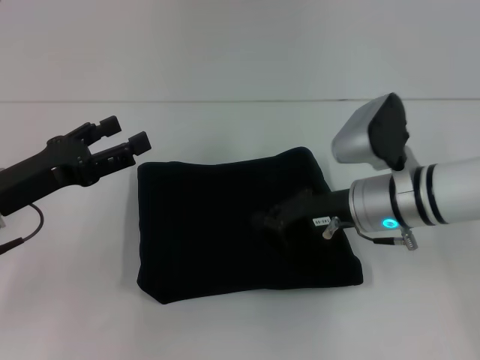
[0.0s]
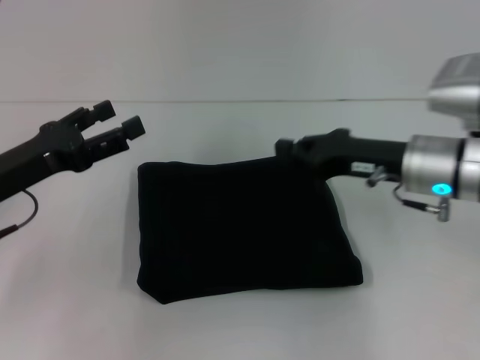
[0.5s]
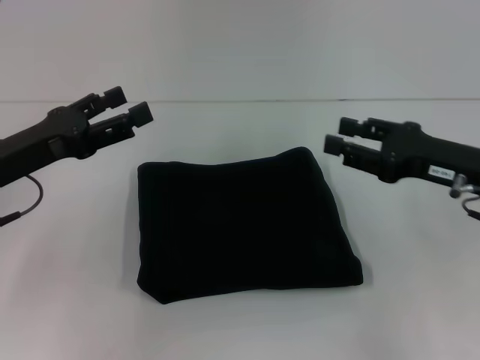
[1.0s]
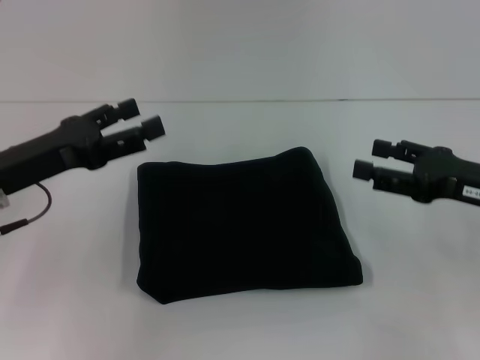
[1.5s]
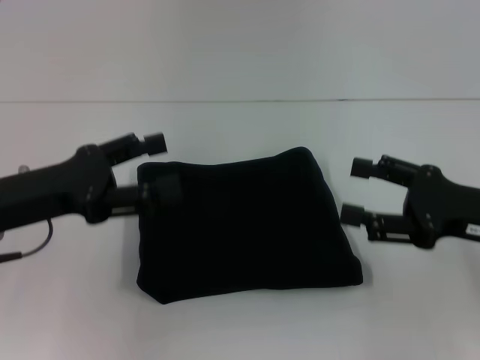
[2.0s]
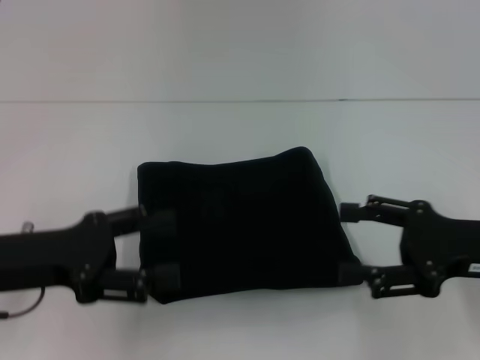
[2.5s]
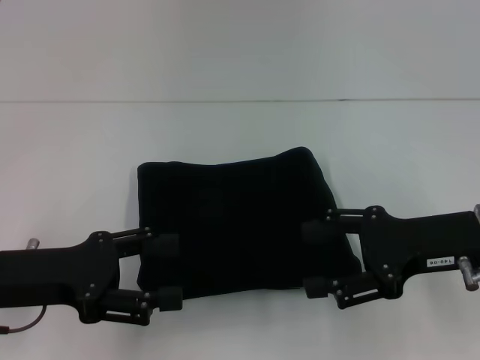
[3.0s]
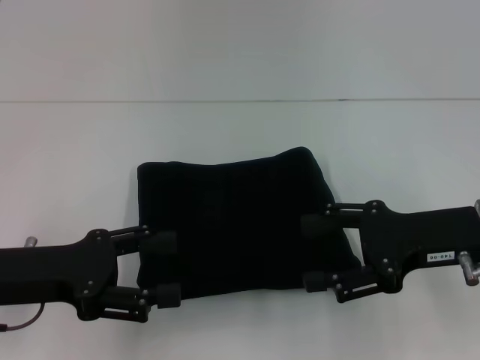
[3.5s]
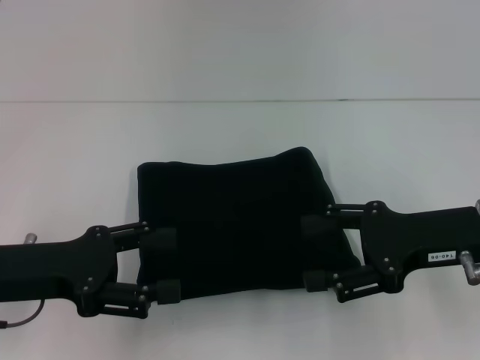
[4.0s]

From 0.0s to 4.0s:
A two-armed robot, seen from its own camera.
From 0.0s to 2.0s: The right gripper travels to the right and backward by roughly 15 cm, and opens up.

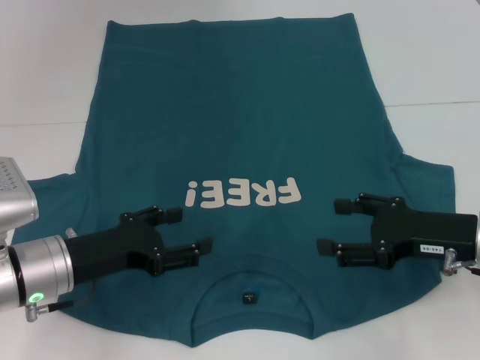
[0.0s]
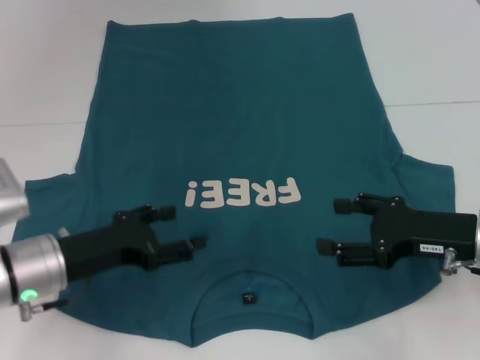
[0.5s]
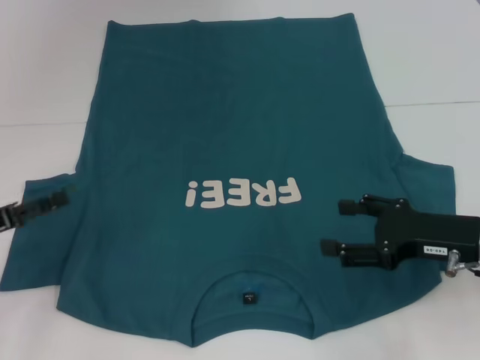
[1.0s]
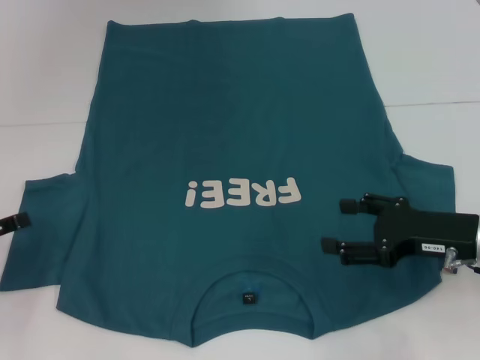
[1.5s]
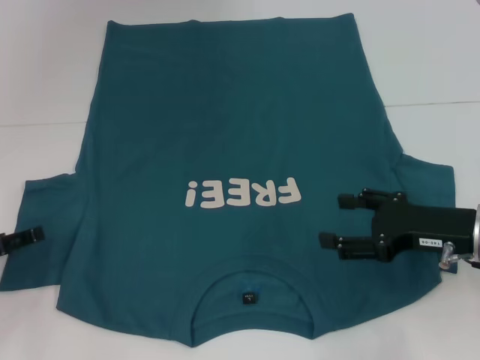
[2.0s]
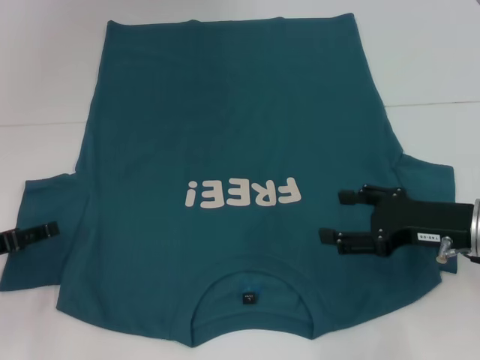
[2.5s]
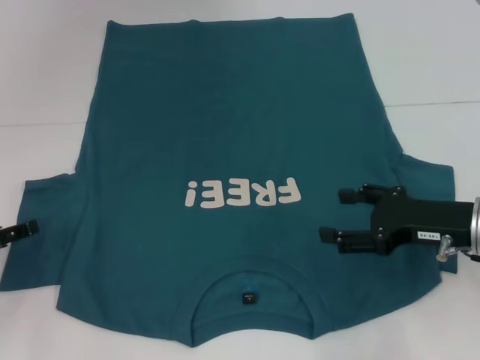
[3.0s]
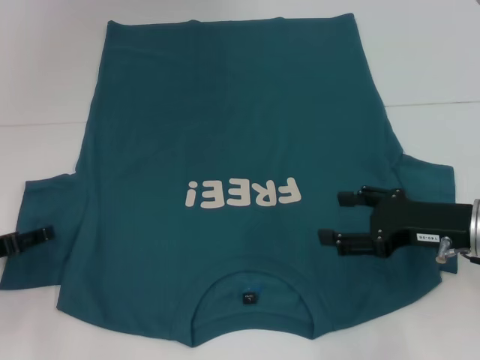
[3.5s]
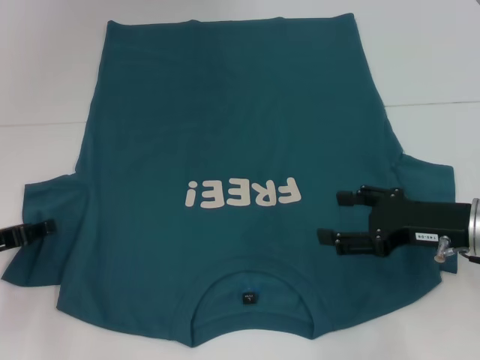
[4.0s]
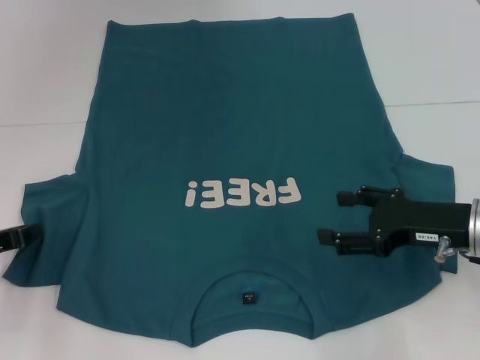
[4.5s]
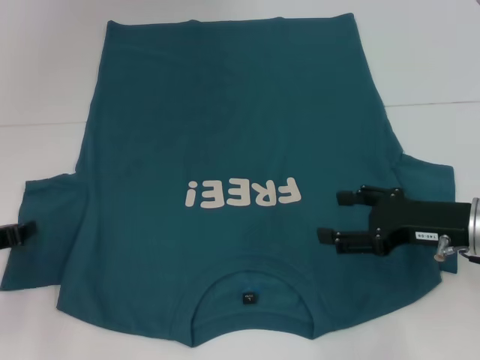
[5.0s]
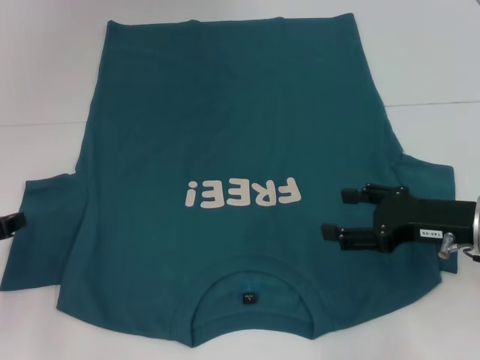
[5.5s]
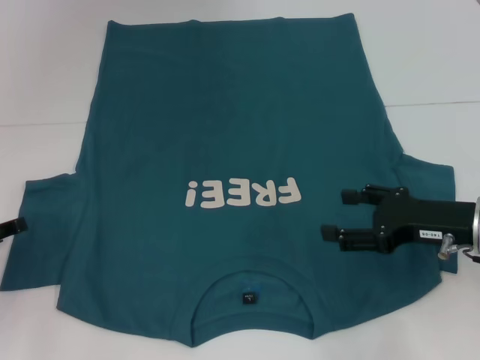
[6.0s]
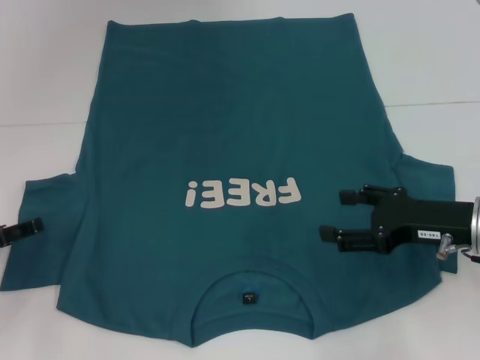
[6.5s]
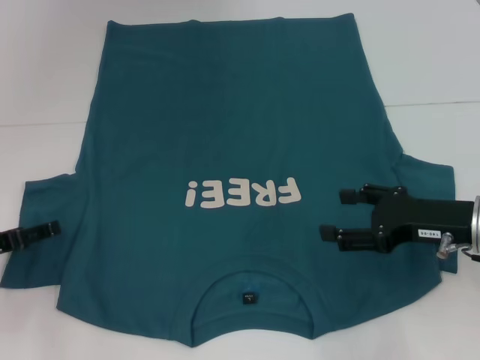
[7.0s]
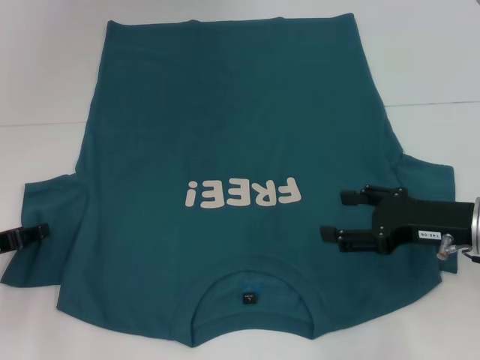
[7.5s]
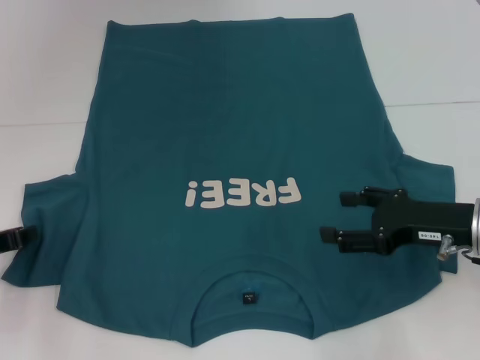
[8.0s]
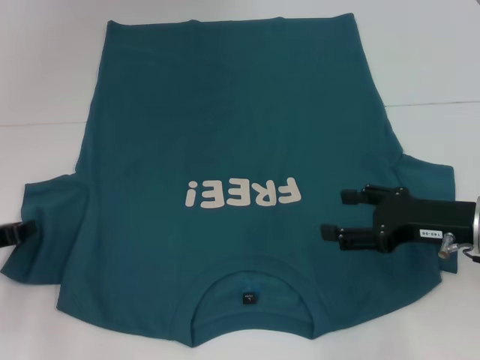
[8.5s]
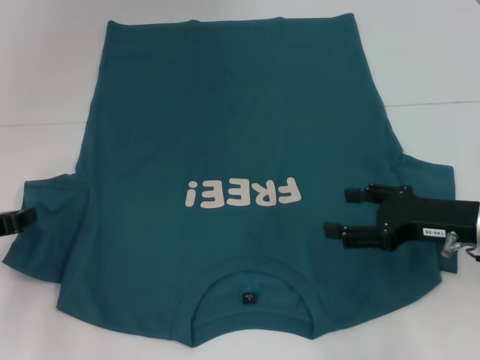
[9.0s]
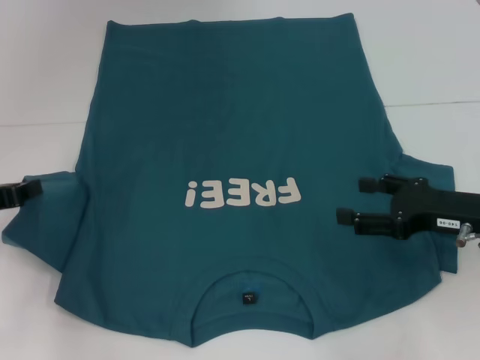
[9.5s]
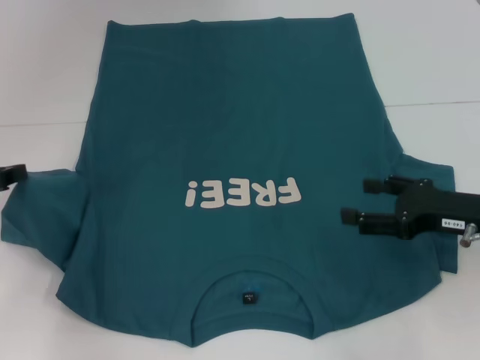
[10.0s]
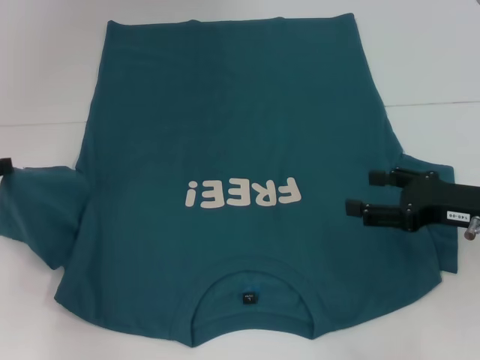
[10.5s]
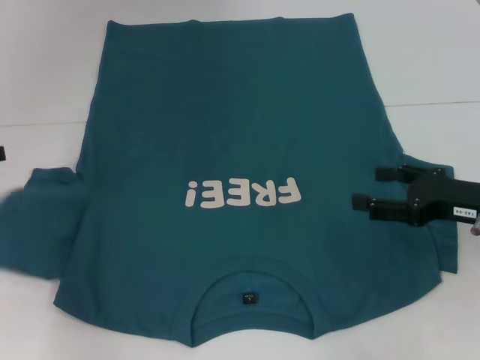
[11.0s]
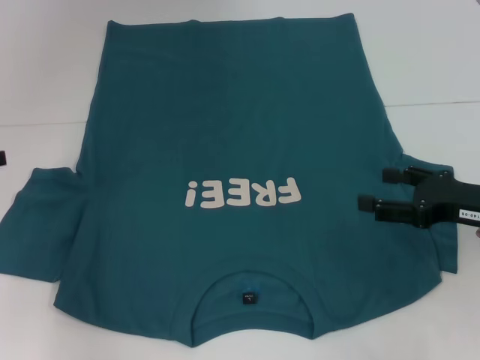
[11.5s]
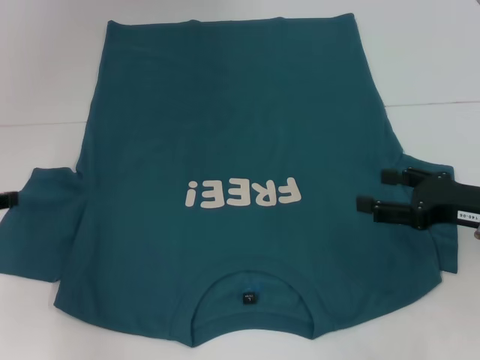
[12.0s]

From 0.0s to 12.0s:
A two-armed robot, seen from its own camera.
From 0.0s to 2.0s: The left gripper heads to the left, covering some 15 cm.
From 2.0s to 4.0s: The grippers stay close to where they were, moving slightly.
From 4.0s to 6.0s: The left gripper closes up.
From 6.0s to 8.0s: The left gripper opens and closes again.
From 8.0s to 10.0s: The left gripper moves upward, about 5 cm.
From 10.0s to 12.0s: There are only small adjustments of the grippers.

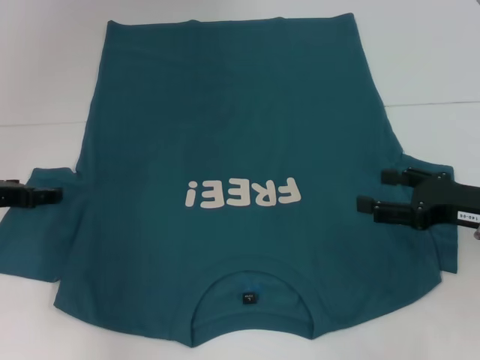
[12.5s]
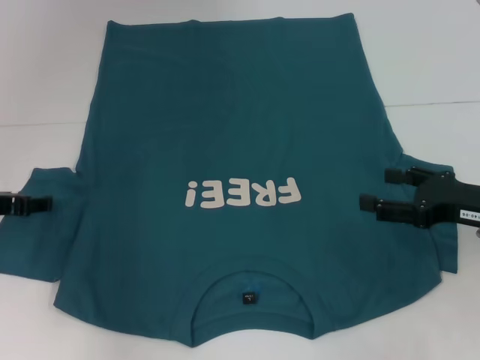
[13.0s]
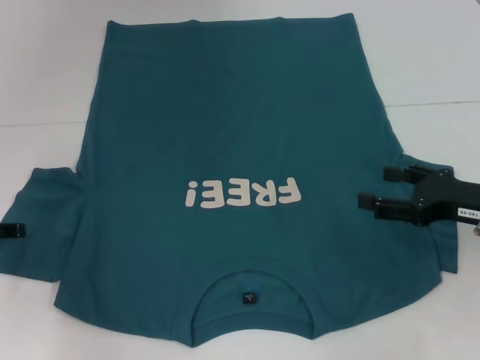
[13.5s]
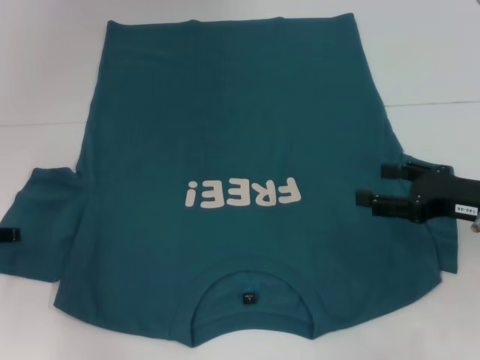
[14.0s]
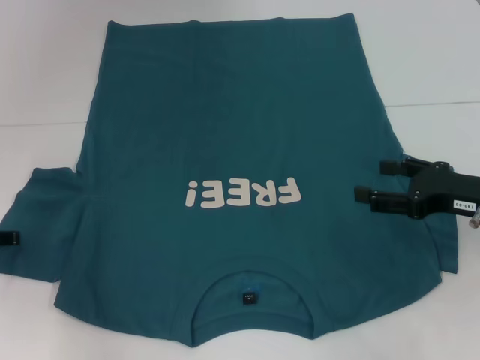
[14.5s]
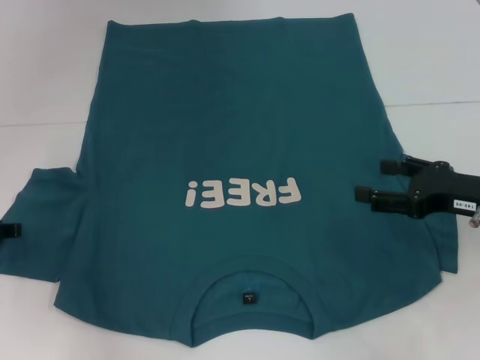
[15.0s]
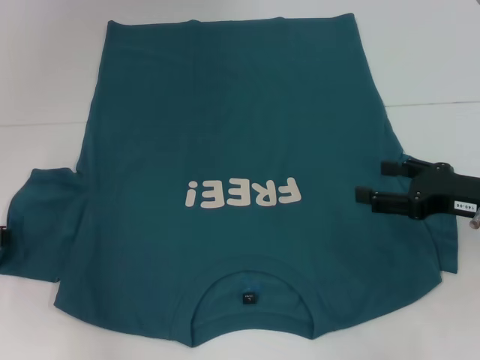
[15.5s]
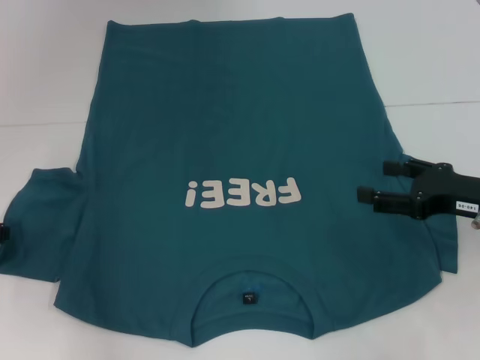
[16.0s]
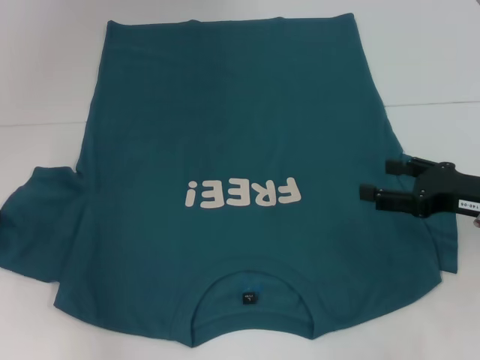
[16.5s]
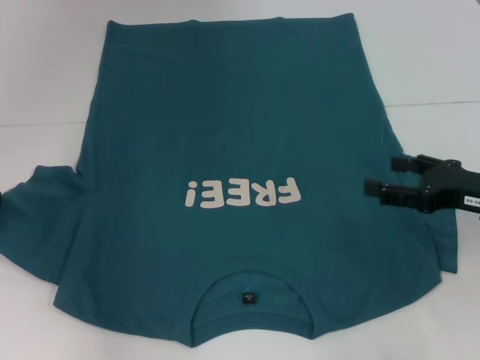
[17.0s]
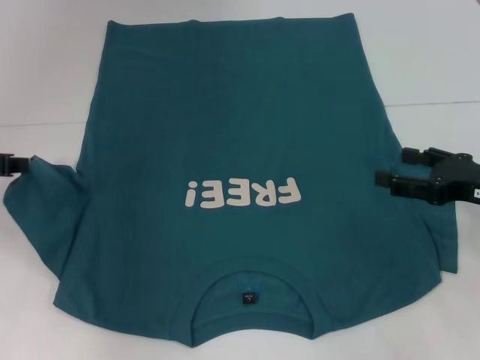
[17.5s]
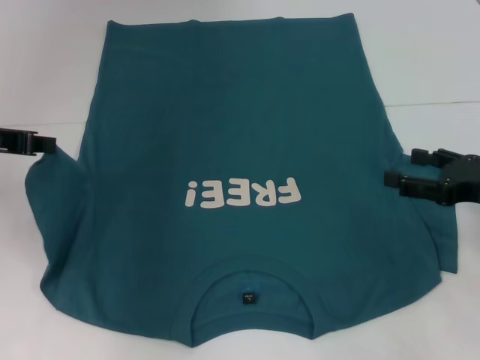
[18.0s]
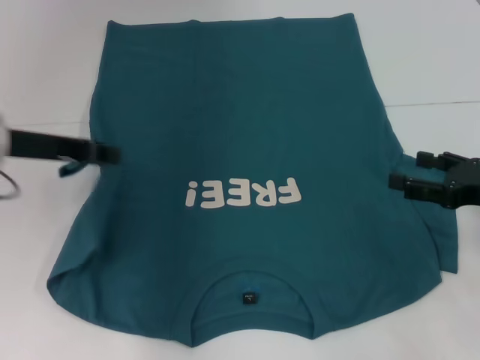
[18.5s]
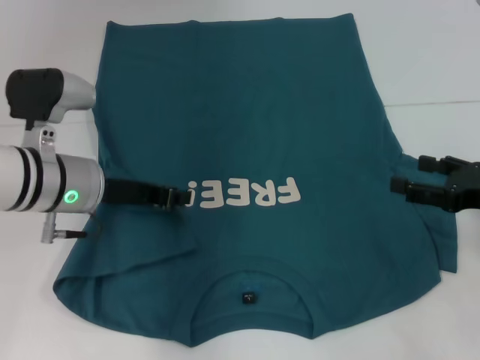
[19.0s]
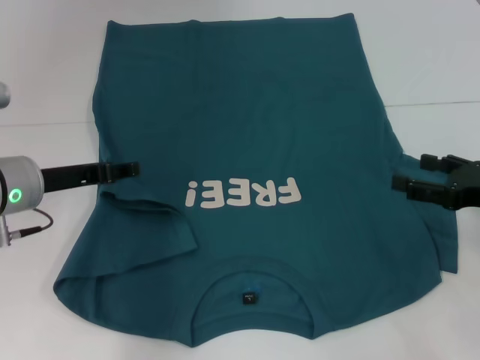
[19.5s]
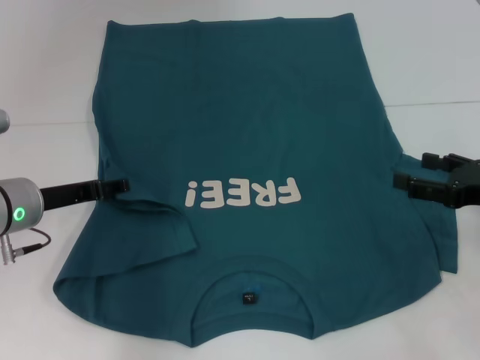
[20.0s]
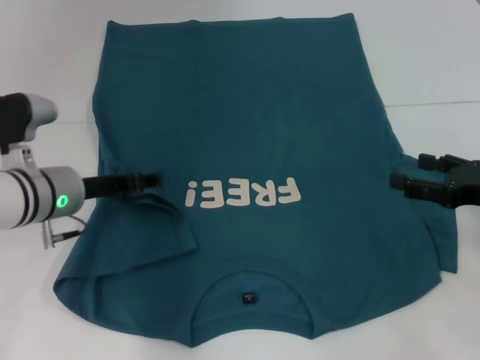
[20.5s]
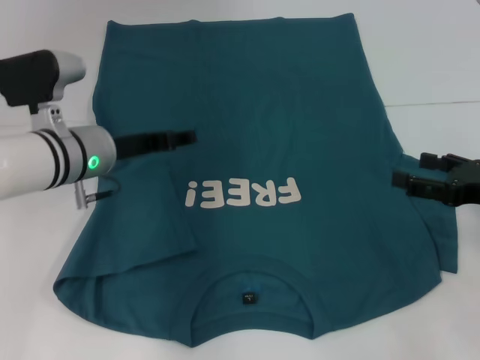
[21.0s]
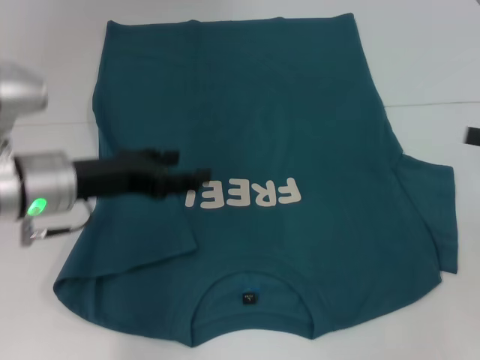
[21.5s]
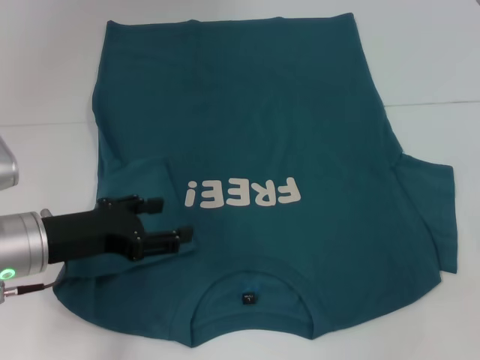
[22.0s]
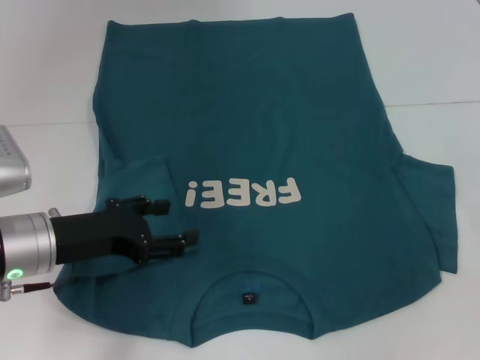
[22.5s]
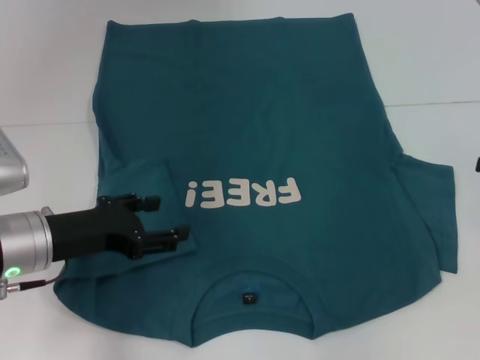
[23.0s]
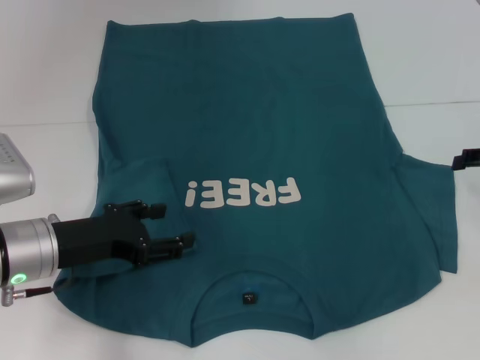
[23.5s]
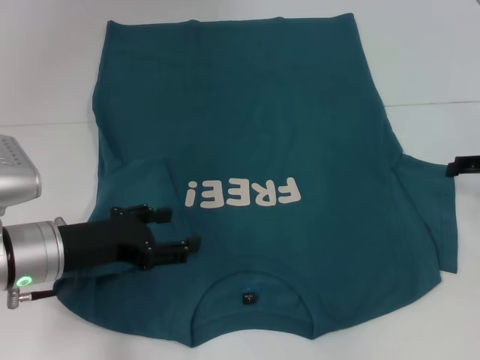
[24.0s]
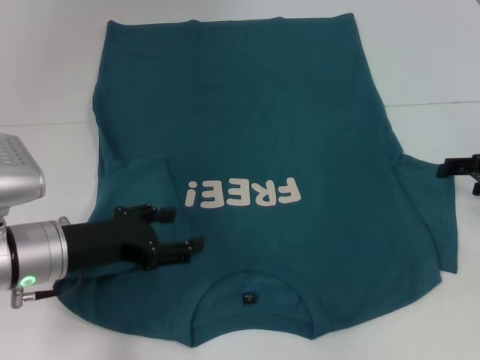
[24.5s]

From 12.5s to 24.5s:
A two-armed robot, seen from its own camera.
Step, from 12.5s to 21.0s: Fold the bottom left sleeve with your left hand.
From 12.5s to 14.5s: The left gripper shifts by some 5 cm.
From 16.5s to 18.5s: The left gripper is displaced to the right and upward by about 15 cm.
From 18.5s to 20.5s: The left gripper goes about 10 cm downward, and opens.
From 20.5s to 22.5s: The left gripper goes about 10 cm backward, while the right gripper goes some 10 cm to the right and upward.
From 22.5s to 24.5s: The right gripper goes some 10 cm forward, to the left and downward.
